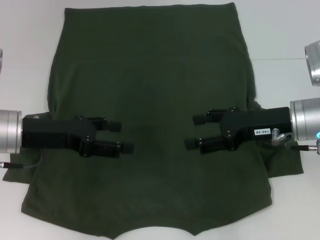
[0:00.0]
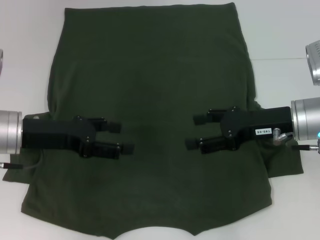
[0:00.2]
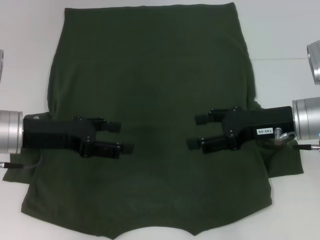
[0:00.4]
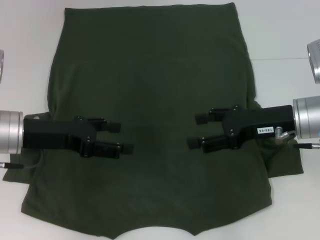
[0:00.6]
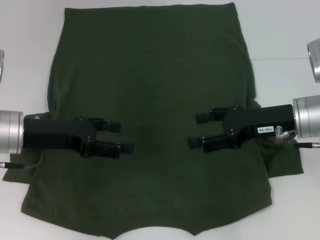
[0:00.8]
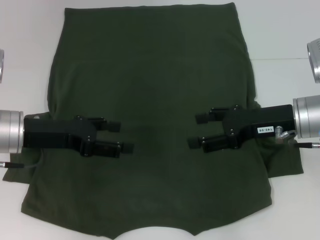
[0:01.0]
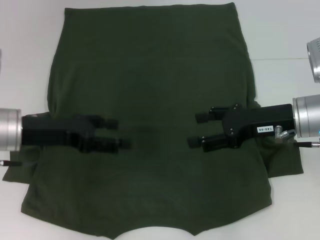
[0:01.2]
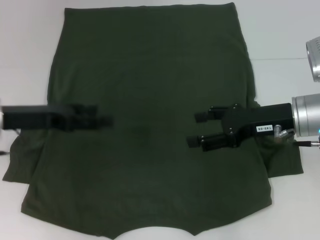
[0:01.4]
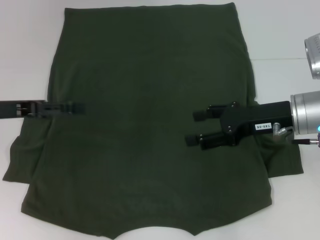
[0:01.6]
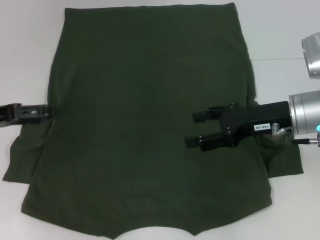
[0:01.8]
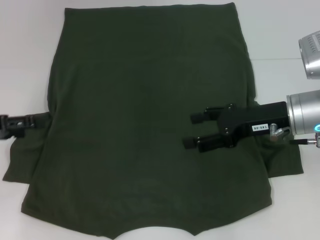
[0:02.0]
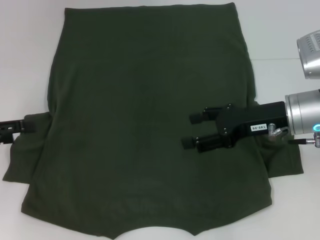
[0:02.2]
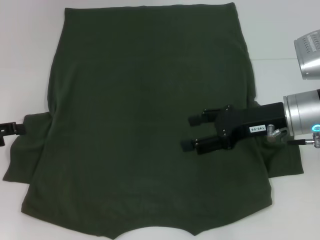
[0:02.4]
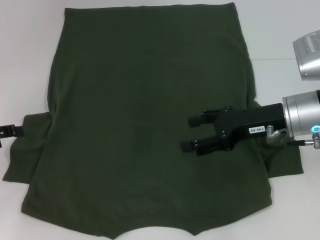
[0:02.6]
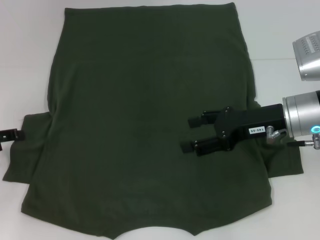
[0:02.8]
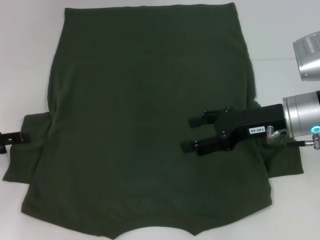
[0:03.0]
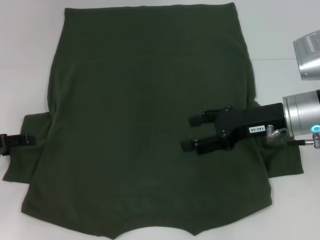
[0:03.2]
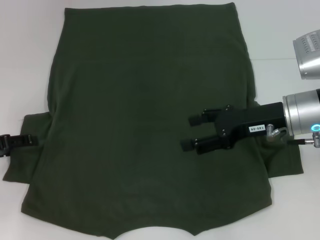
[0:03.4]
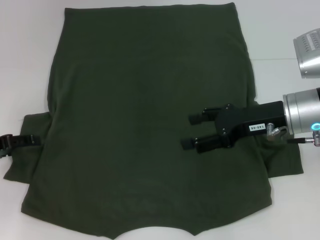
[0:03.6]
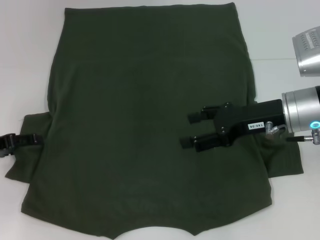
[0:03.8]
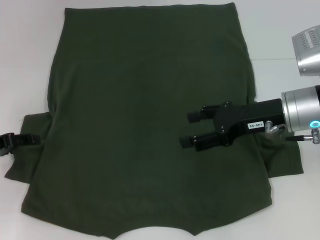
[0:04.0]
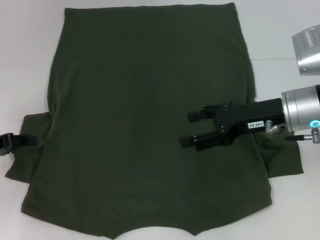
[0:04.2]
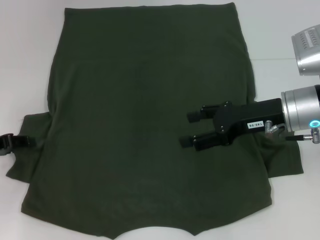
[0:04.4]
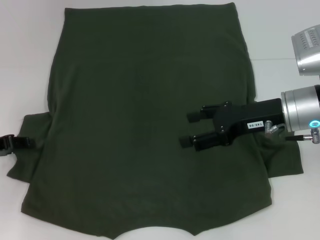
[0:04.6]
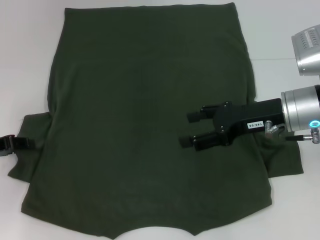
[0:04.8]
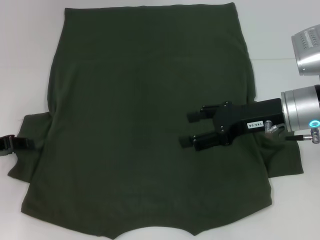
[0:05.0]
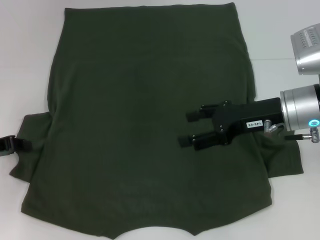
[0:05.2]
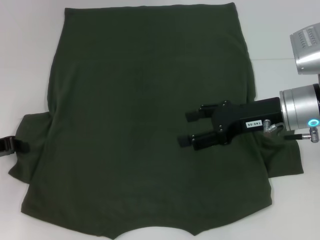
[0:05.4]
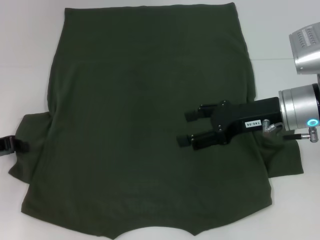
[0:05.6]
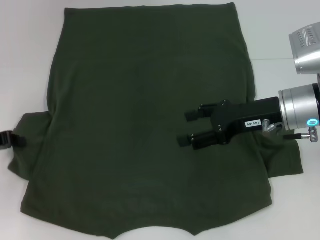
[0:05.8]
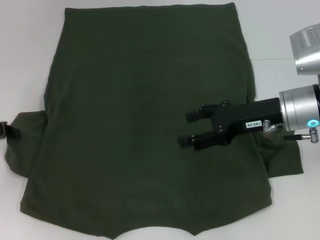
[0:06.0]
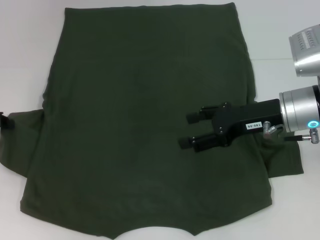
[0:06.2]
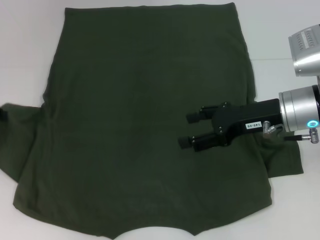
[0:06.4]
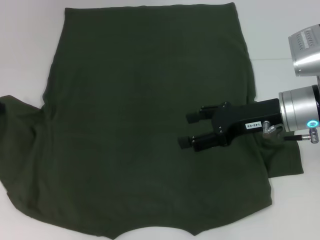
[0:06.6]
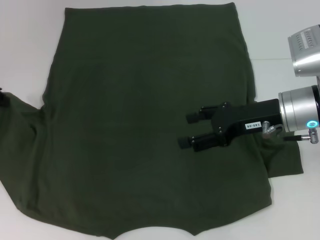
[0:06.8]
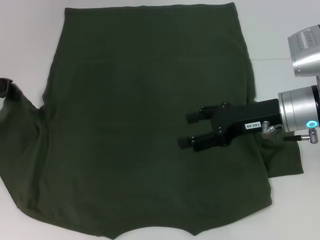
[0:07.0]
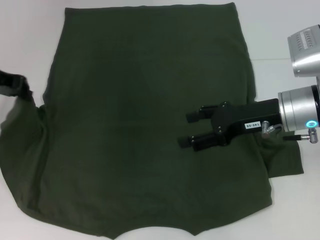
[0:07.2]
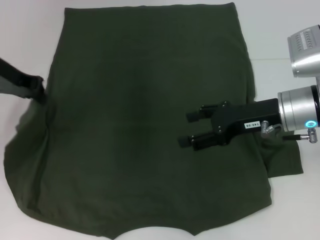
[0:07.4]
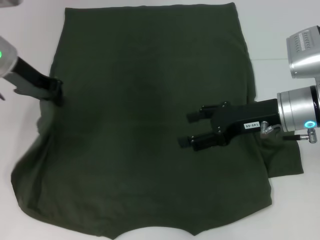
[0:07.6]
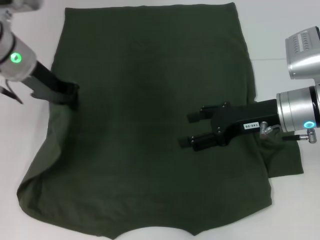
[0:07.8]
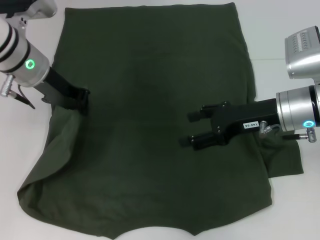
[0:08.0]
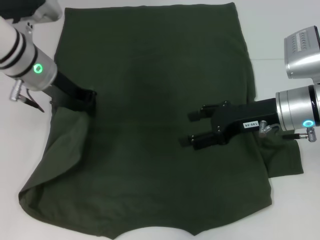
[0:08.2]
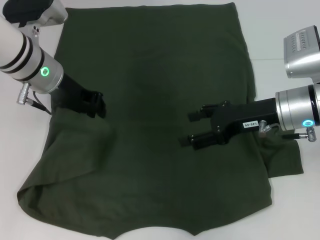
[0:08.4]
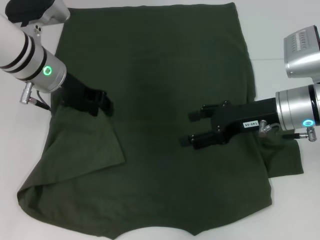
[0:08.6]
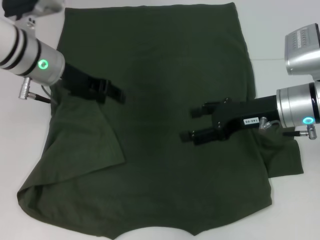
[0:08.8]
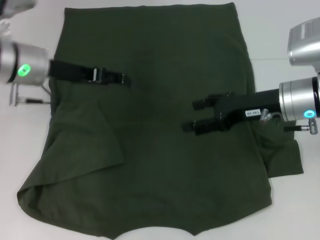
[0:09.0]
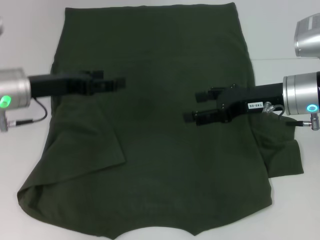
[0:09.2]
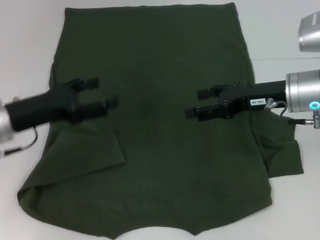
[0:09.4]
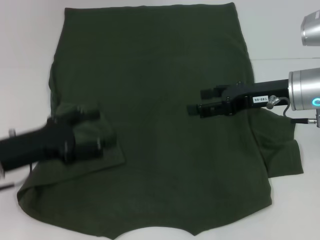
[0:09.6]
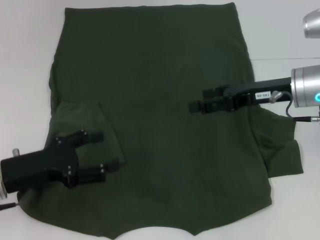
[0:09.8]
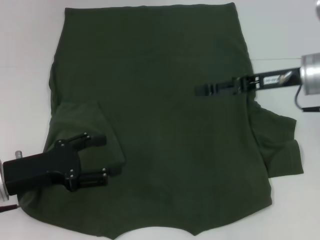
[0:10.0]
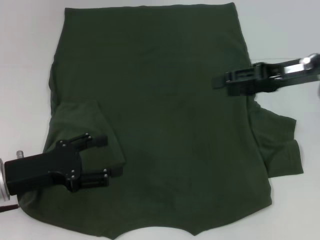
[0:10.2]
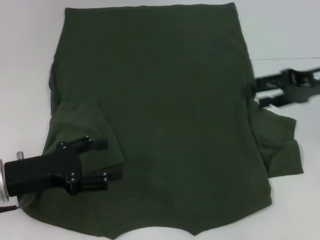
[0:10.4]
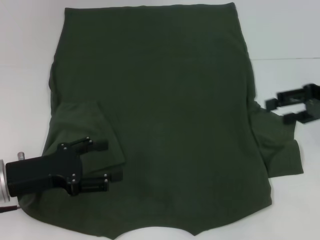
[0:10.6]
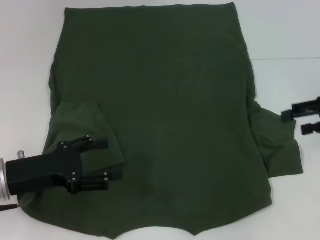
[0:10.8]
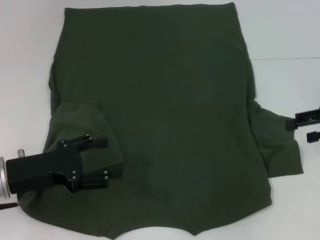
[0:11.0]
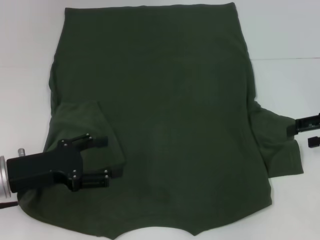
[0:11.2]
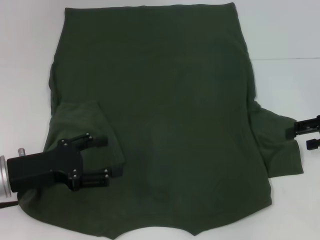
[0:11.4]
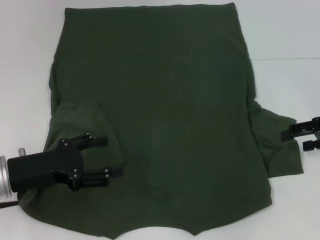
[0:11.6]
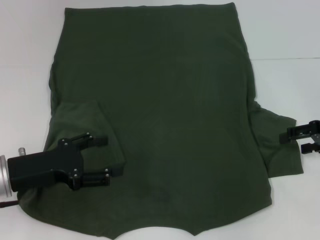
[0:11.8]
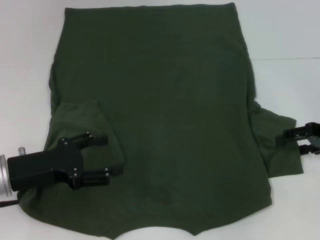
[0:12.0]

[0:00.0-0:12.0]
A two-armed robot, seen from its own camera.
Step, 0:00.0 to 0:08.6: Fold the bottom left sleeve with your left hand.
0:00.0 to 0:01.6: The left gripper travels to the left by roughly 5 cm.
0:01.6 to 0:03.0: The left gripper is displaced downward and to the left by approximately 10 cm.
0:03.0 to 0:04.4: The grippers stay close to where they were, moving slightly.
0:04.4 to 0:06.0: The left gripper closes.
0:06.0 to 0:07.6: The left gripper heads to the right, upward and forward, covering some 20 cm.
0:07.6 to 0:09.0: The left gripper opens its fingers.
0:09.0 to 0:10.4: The left gripper goes some 15 cm backward and downward, while the right gripper heads to the right and upward, covering approximately 10 cm.
0:10.4 to 0:12.0: The right gripper shifts about 5 cm downward.

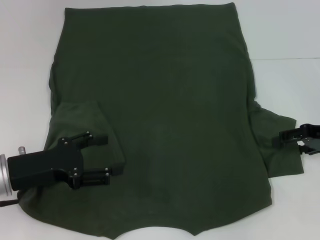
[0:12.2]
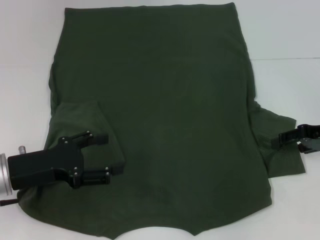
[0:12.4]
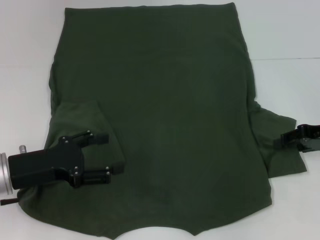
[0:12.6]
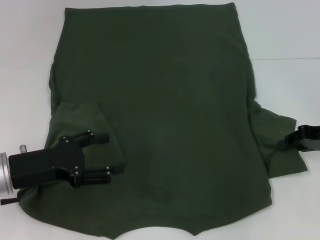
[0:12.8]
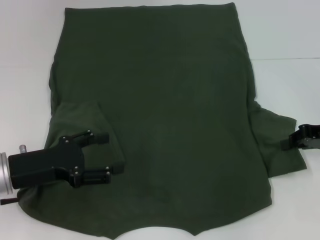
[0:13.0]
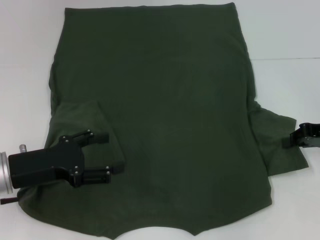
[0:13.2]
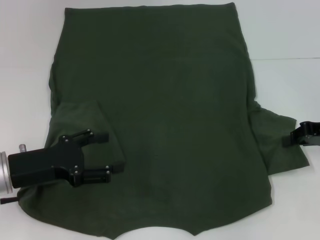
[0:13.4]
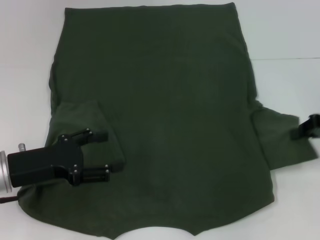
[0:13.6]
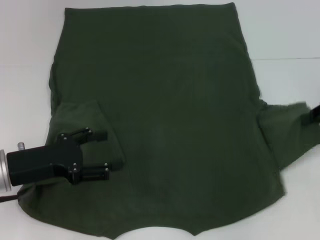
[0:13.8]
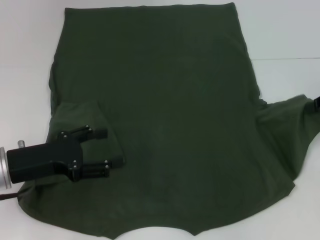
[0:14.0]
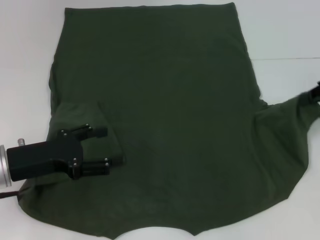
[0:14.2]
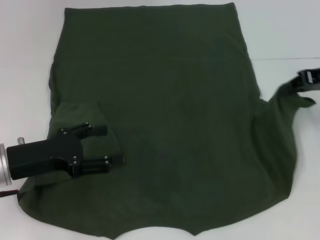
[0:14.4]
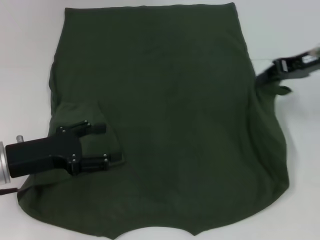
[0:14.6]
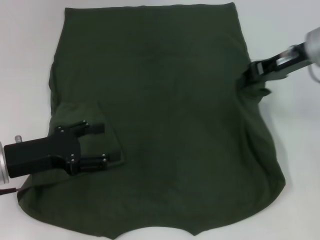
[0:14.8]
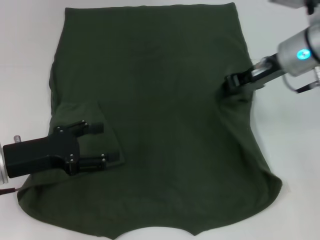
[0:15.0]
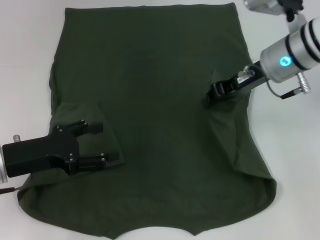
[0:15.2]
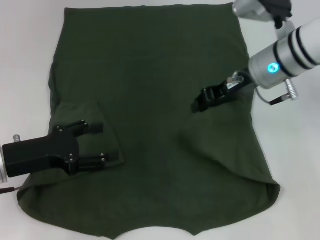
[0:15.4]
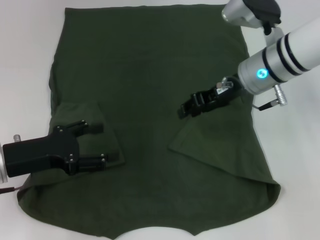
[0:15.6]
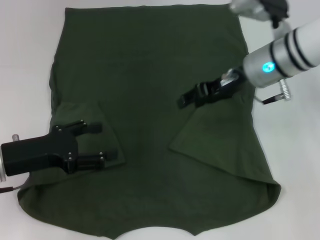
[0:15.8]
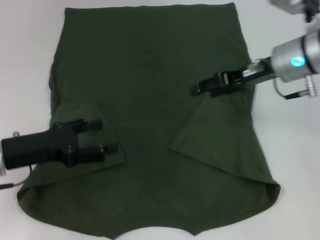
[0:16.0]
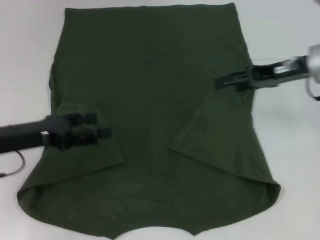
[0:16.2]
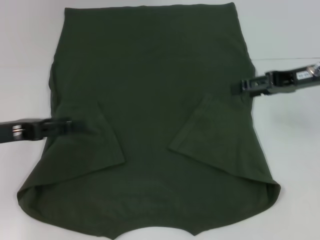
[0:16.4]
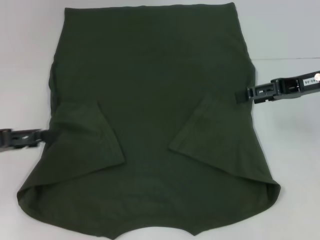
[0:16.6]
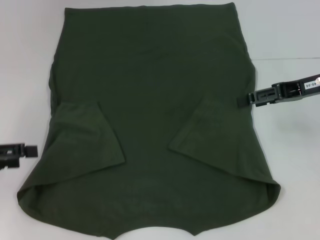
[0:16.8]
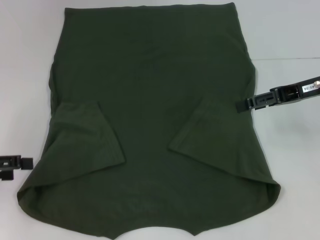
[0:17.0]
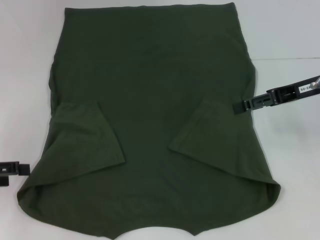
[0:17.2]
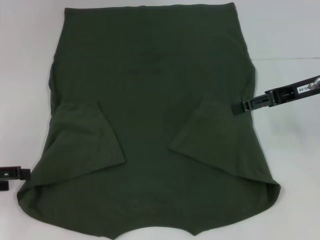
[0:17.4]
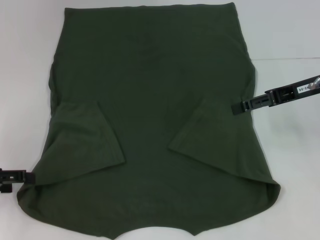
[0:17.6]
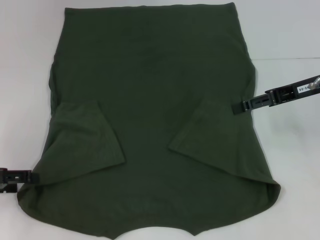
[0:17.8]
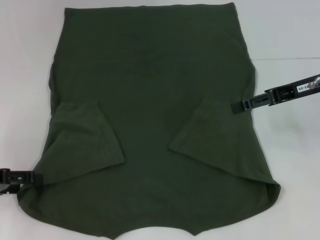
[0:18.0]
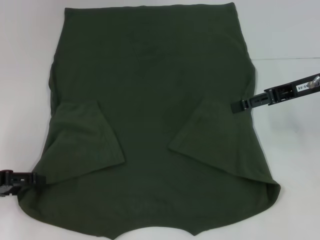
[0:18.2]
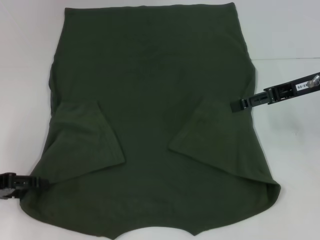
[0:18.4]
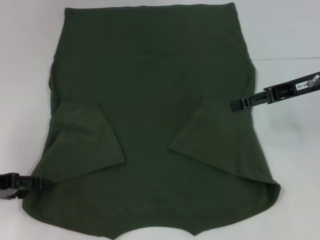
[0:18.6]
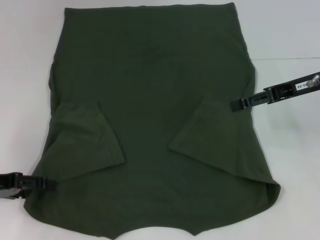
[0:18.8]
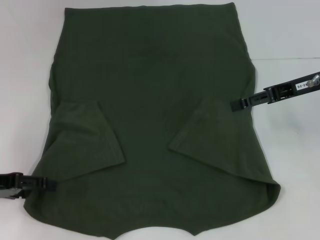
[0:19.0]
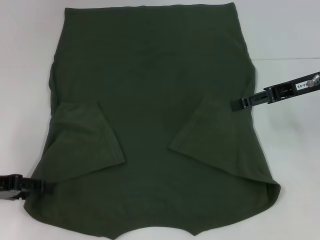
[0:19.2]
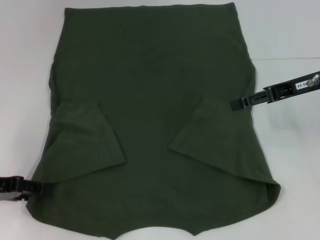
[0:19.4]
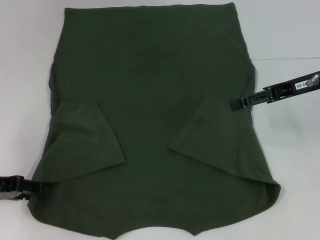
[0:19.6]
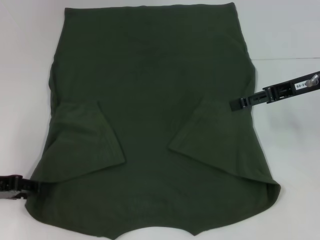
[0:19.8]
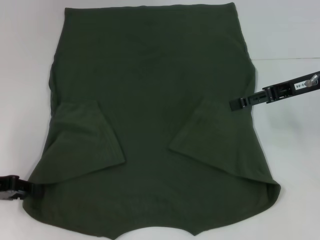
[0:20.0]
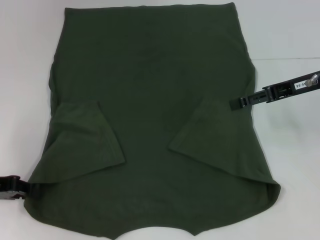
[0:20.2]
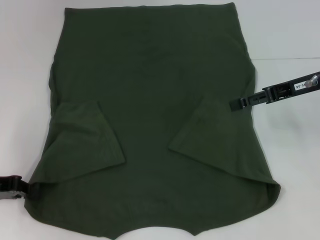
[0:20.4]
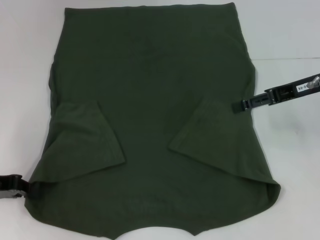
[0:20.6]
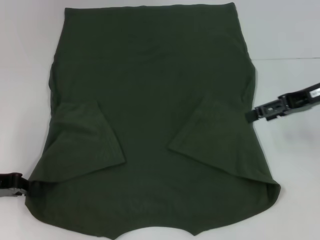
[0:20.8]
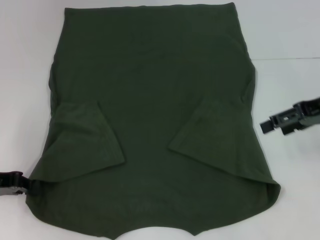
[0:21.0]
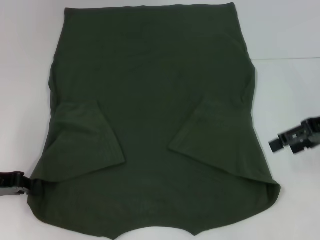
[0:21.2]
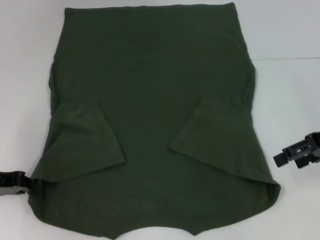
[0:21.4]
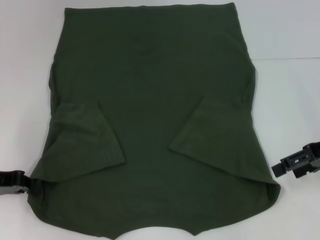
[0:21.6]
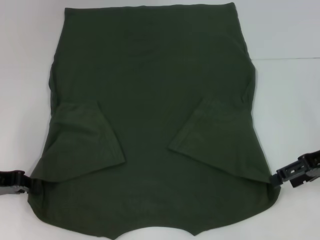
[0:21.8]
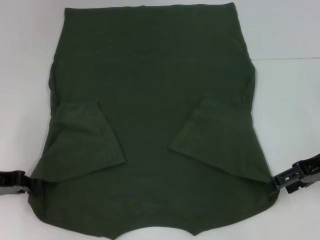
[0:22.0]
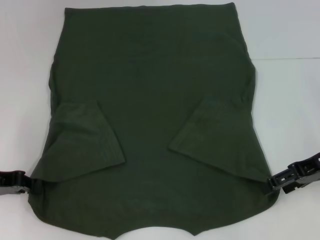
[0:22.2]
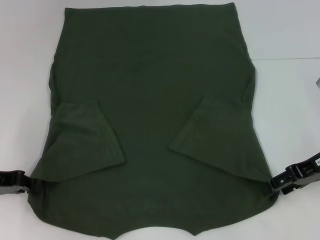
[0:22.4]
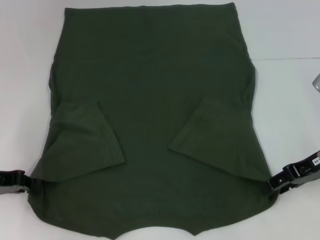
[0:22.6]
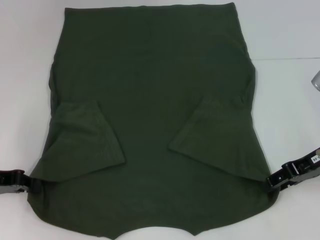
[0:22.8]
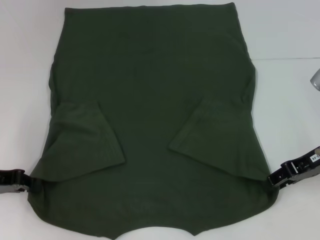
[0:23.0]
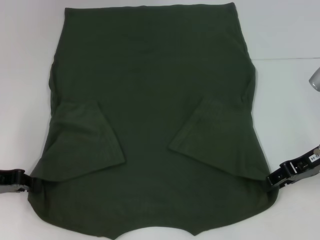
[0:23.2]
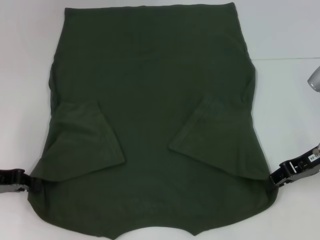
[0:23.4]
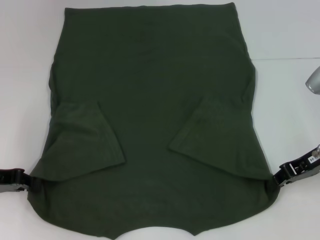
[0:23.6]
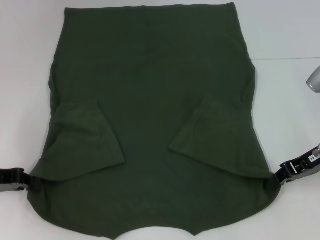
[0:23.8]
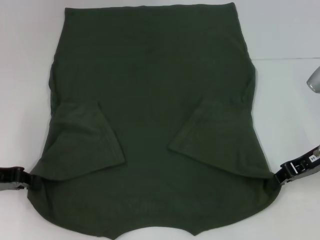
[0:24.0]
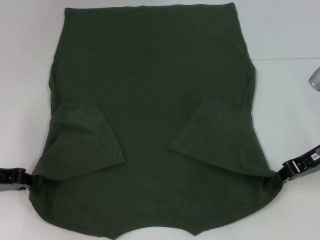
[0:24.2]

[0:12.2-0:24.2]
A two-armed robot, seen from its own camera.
Step, 0:12.2 to 0:15.4: Fold the bottom right sleeve with your right hand.
Step, 0:15.6 to 0:20.2: Grab the bottom left corner with your left hand.
Step, 0:20.4 to 0:23.6: Grab the bottom right corner with your right hand.
0:12.2 to 0:13.8: The right gripper closes its fingers.
0:13.8 to 0:15.2: The right gripper heads to the left, covering roughly 20 cm.
0:15.2 to 0:16.6: The left gripper goes about 10 cm to the left; the right gripper shifts about 10 cm to the right, and opens.
0:16.6 to 0:18.2: The left gripper changes place by roughly 5 cm.
0:18.2 to 0:19.8: The left gripper closes up.
0:19.8 to 0:21.2: The left gripper closes up.
0:21.2 to 0:22.6: The right gripper moves downward, about 5 cm.
0:22.6 to 0:24.2: The right gripper closes its fingers.
